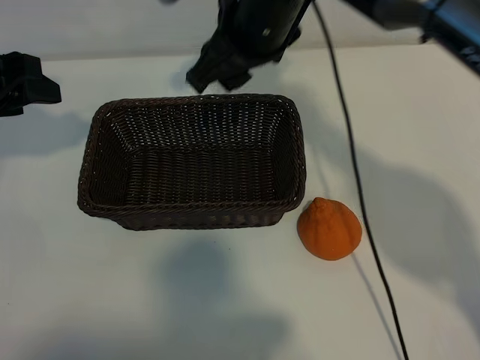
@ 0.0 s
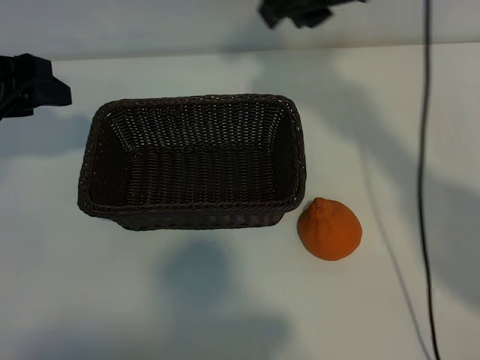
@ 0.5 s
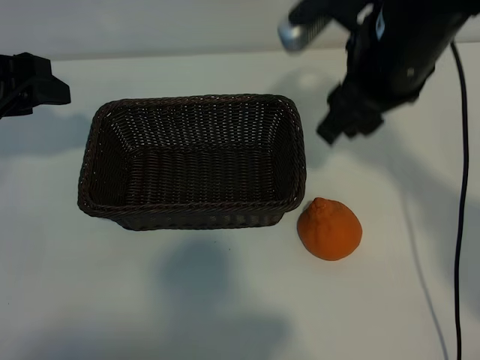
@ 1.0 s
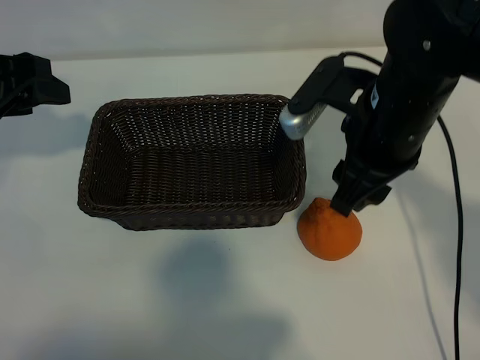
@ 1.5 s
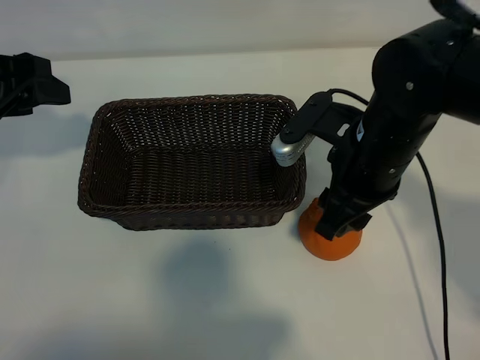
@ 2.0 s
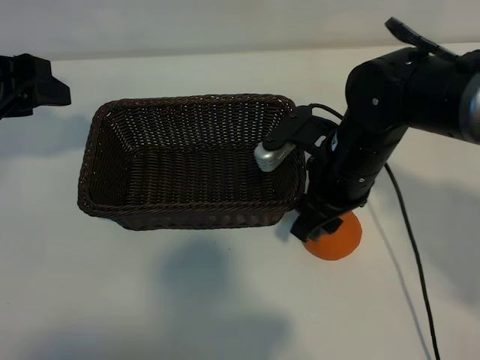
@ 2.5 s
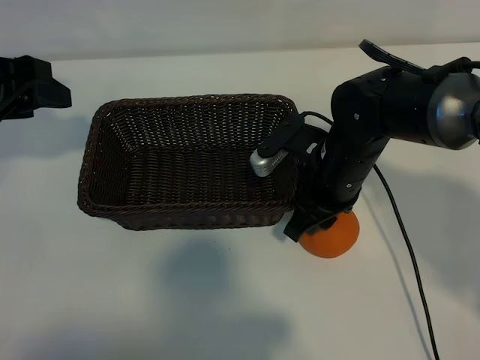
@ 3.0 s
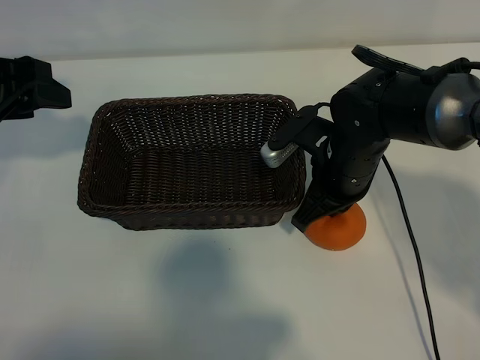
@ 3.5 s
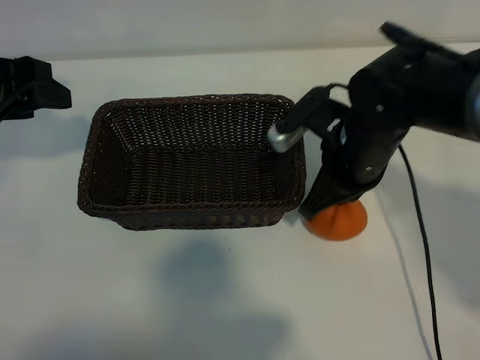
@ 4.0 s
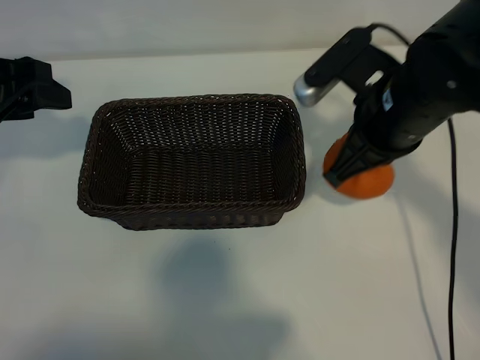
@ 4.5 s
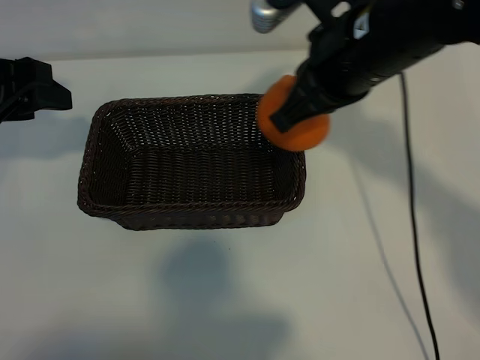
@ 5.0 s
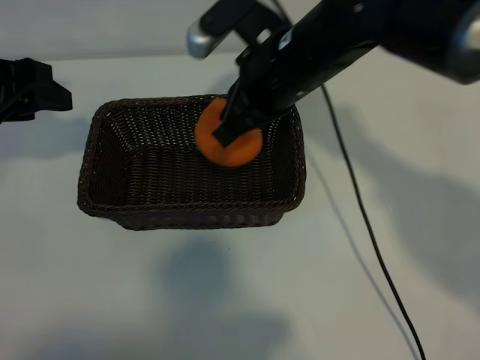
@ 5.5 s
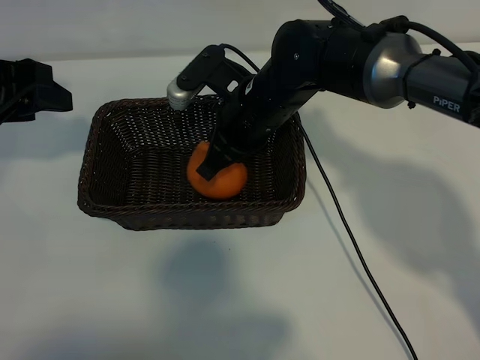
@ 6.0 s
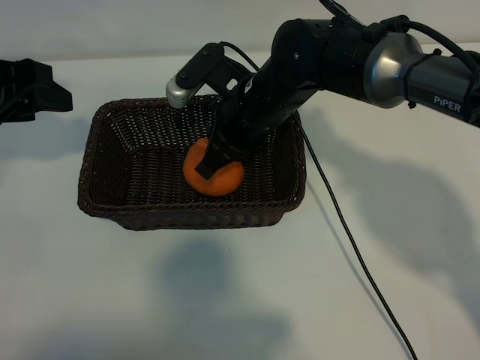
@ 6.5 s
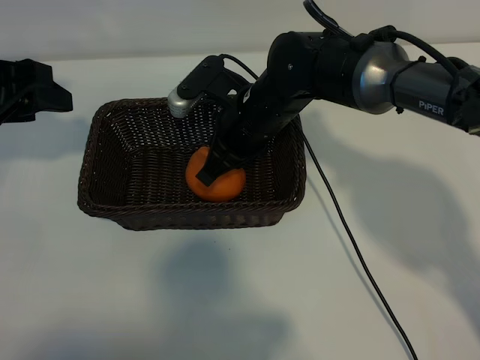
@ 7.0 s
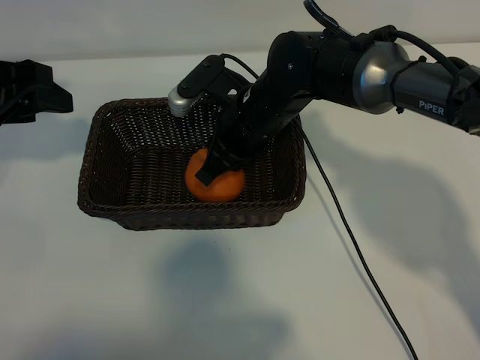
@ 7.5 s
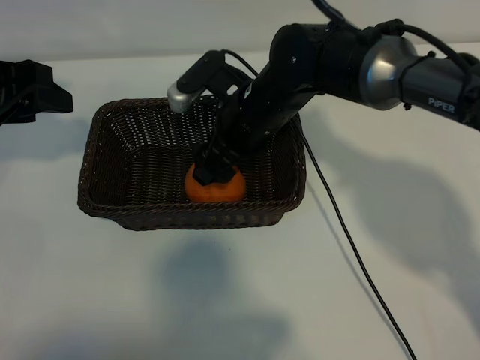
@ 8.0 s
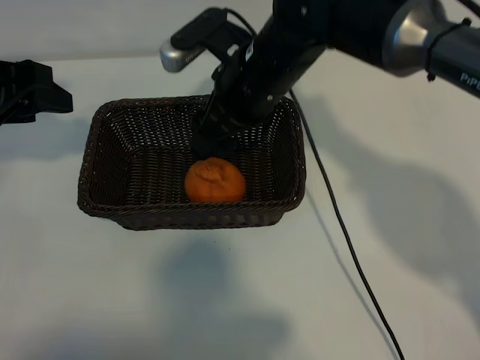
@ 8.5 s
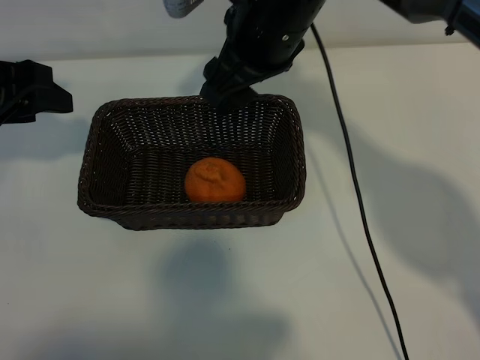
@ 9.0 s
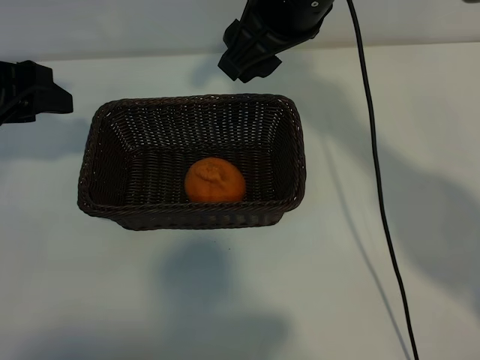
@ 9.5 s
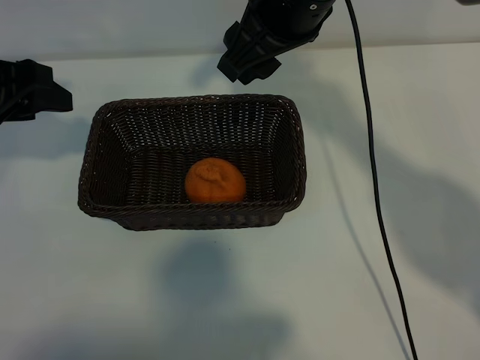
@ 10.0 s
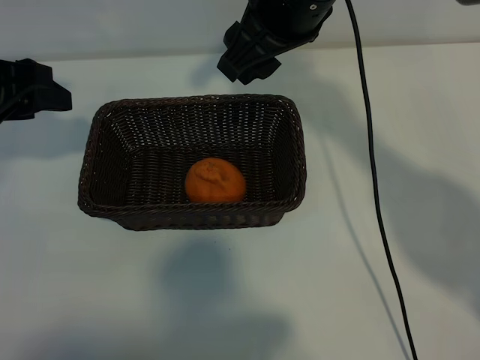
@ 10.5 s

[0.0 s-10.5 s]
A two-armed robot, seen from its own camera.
Task of the whole recording: pick up the orange and put it into the basket.
Step, 0.0 to 3.0 s: Grasp the orange with right gripper.
Step, 3.5 to 8.0 s: Place the orange in the basket with right gripper.
